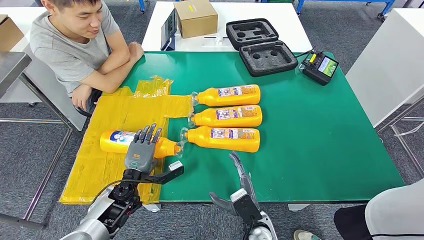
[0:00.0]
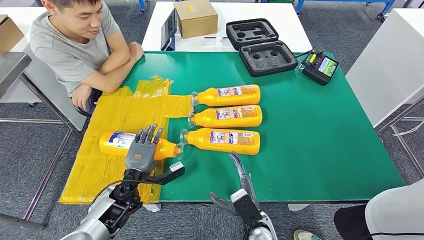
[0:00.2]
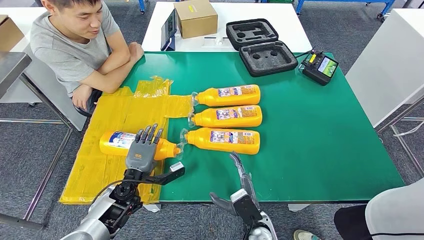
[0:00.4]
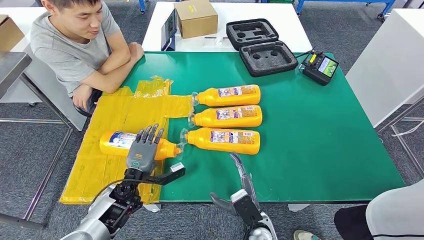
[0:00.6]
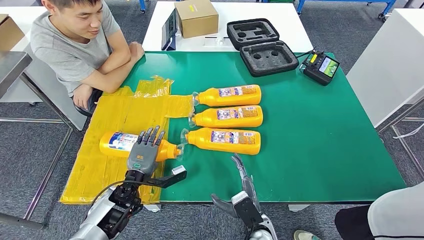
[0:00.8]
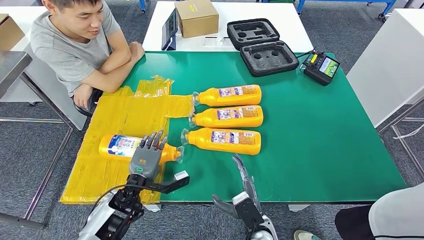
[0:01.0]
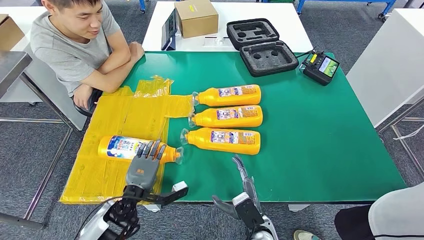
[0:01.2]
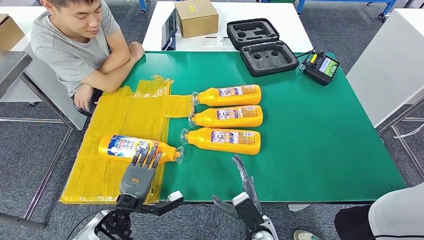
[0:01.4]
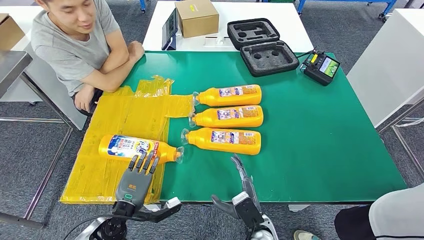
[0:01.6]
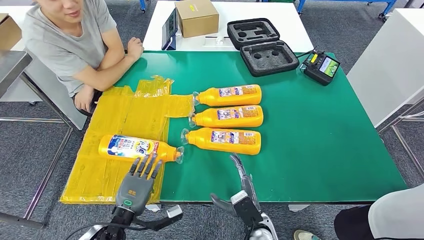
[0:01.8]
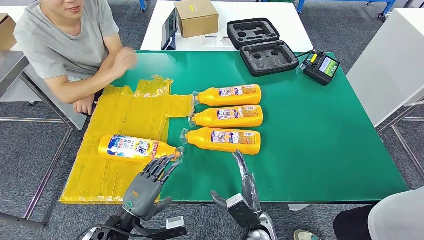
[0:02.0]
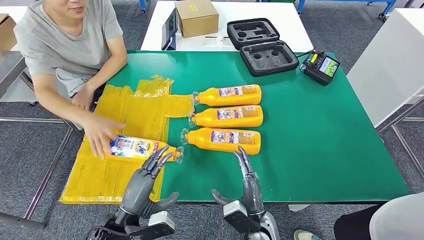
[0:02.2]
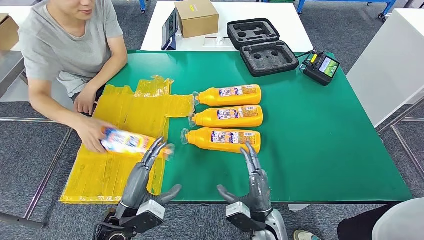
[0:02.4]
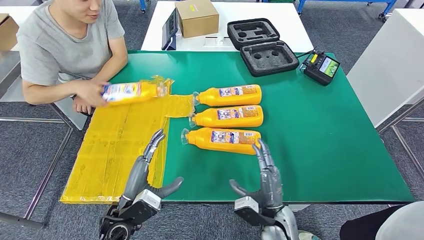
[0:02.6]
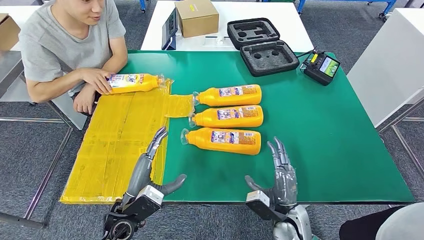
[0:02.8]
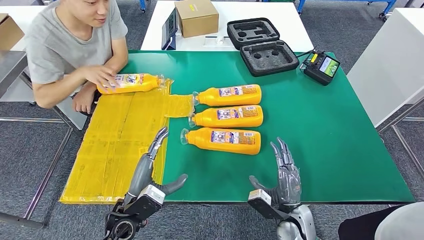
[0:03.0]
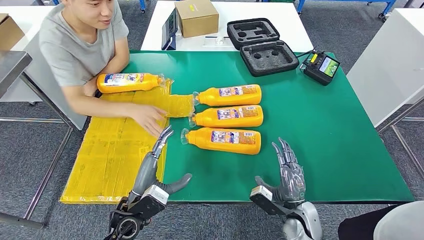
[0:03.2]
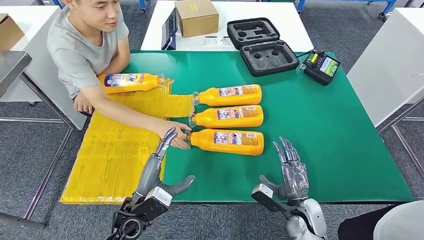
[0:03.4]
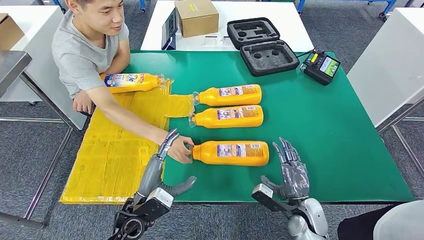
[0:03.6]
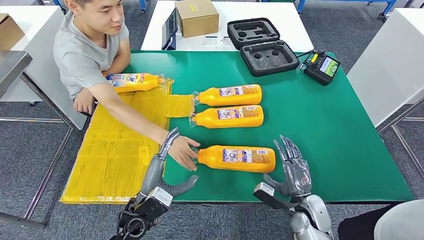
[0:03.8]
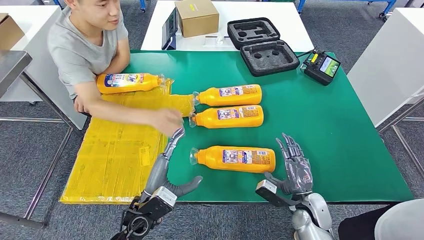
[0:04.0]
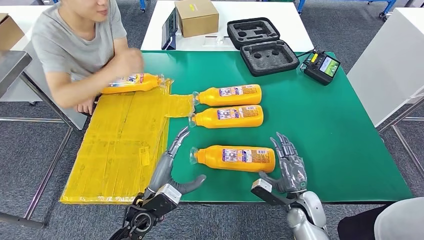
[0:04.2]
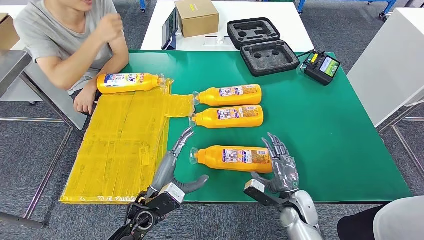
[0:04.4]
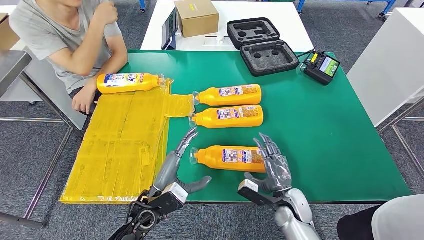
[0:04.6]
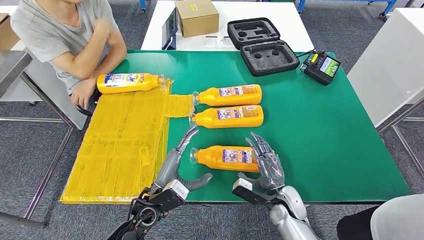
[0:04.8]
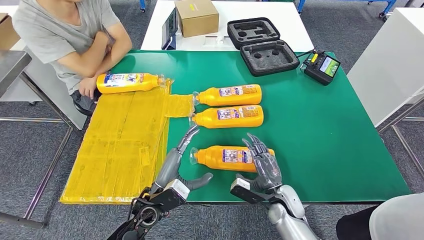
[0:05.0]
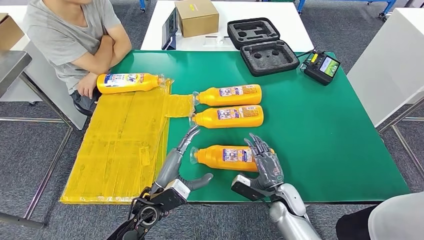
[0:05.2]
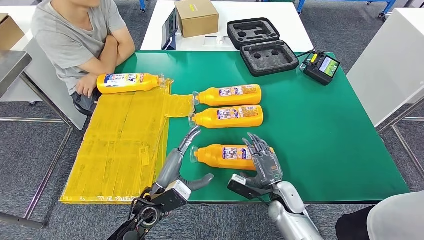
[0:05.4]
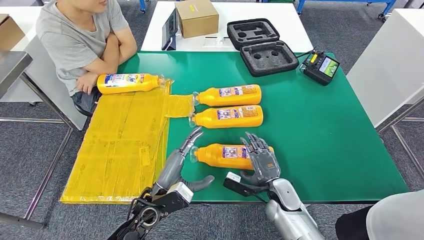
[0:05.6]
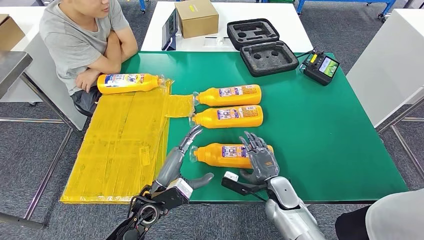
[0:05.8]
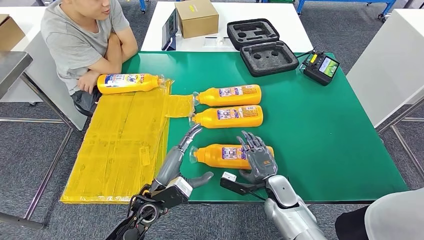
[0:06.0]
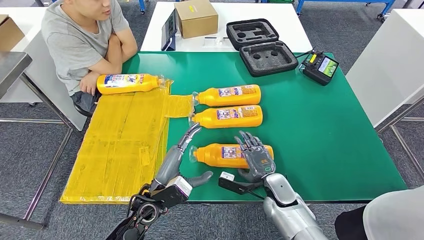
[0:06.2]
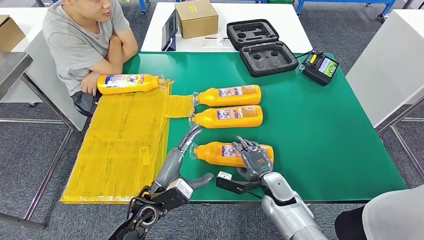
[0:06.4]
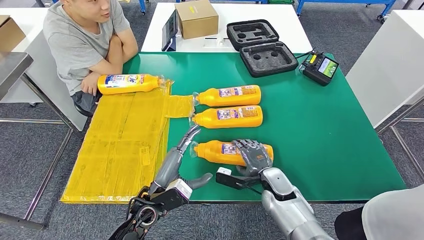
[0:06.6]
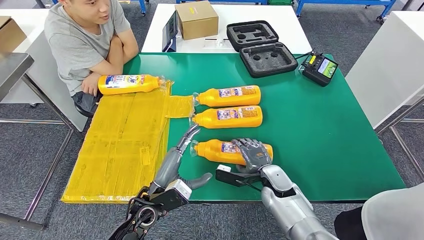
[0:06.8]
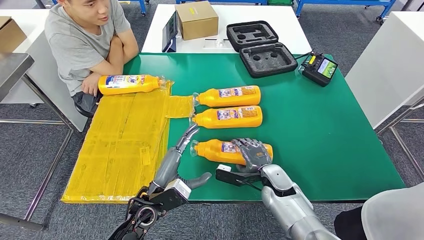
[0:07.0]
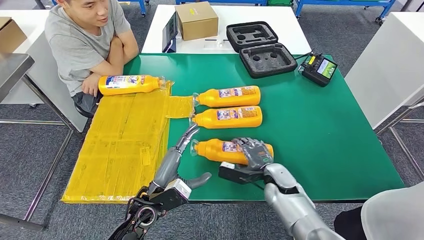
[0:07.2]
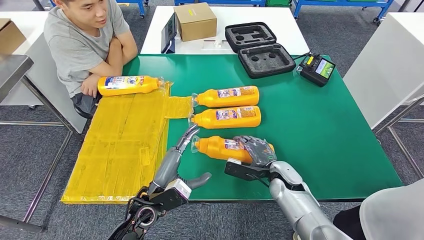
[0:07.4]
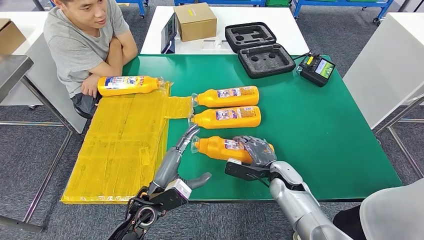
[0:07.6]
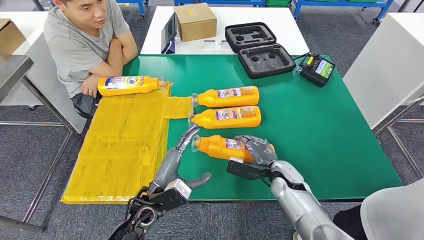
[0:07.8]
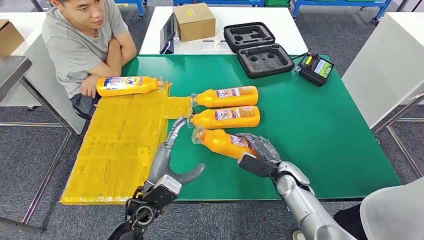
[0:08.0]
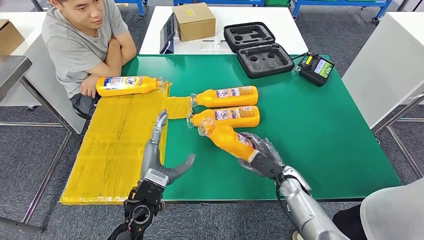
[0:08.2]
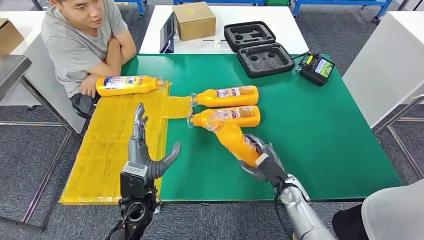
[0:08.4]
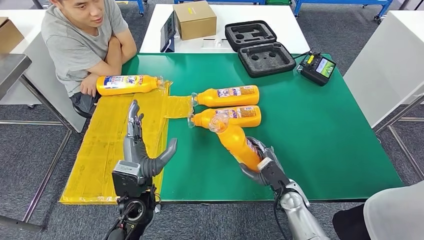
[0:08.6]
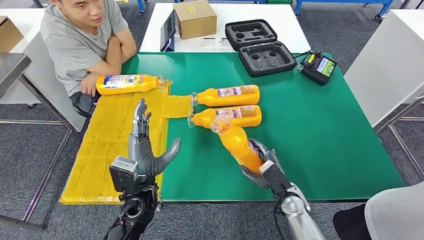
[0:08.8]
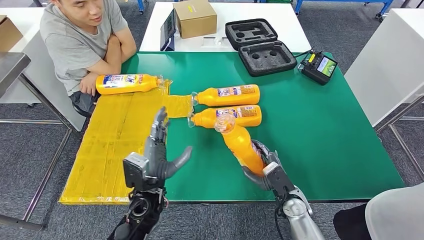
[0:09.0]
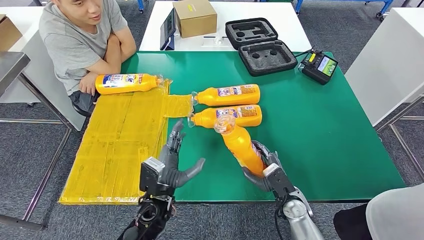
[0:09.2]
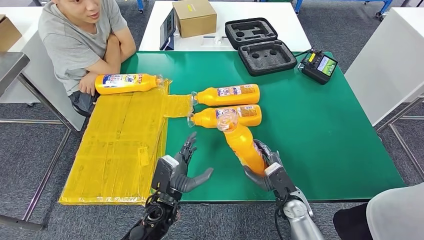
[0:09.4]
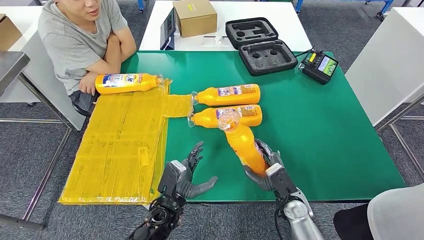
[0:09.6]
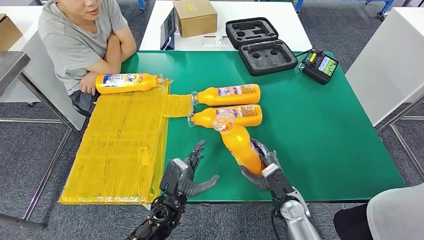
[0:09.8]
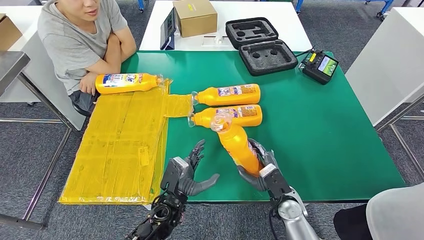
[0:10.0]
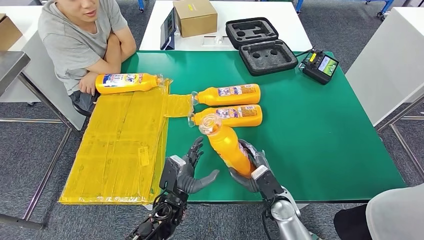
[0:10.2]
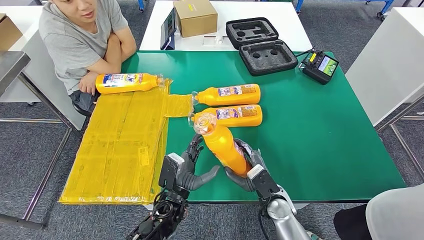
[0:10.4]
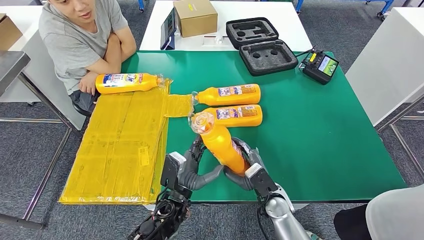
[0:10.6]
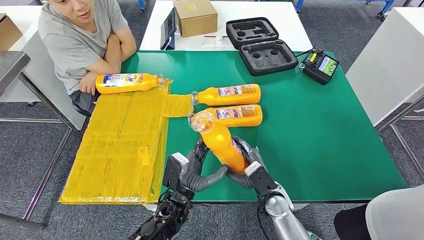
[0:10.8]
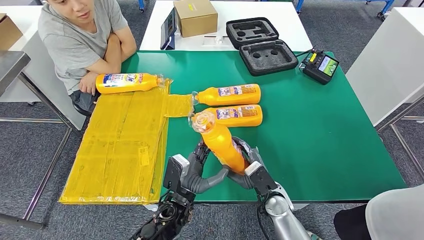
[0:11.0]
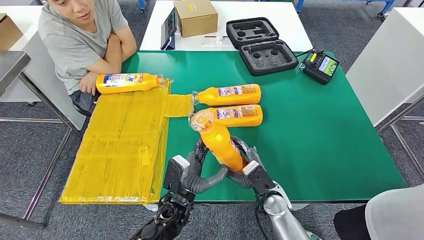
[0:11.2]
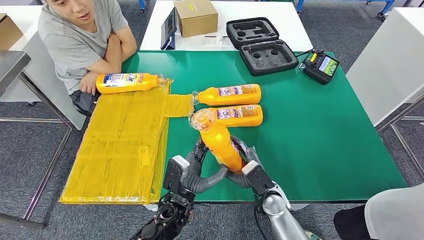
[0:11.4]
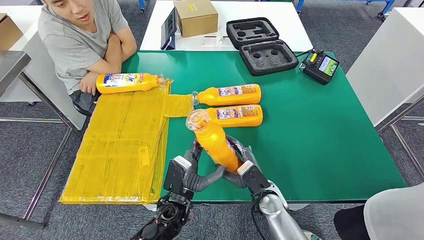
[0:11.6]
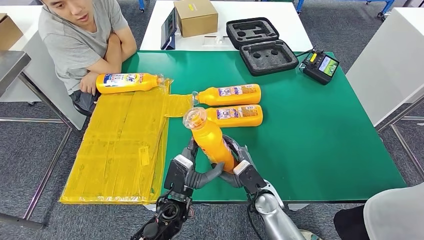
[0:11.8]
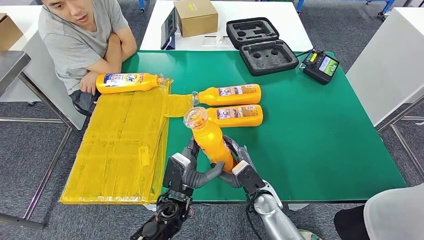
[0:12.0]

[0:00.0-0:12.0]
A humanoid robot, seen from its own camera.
0:00.0 to 0:01.6: The left hand goes about 10 cm backward.
0:01.6 to 0:03.0: The right hand goes about 10 cm to the right; the left hand changes place by about 5 cm.
0:03.0 to 0:04.4: The left hand ends up some 5 cm from where it was.
0:04.4 to 0:06.0: The right hand shifts some 5 cm to the left.
0:09.0 to 0:10.4: The right hand changes place by roughly 5 cm, while the left hand is displaced downward and to the right by roughly 10 cm.
0:10.4 to 0:12.0: There are only small adjustments of the hands.

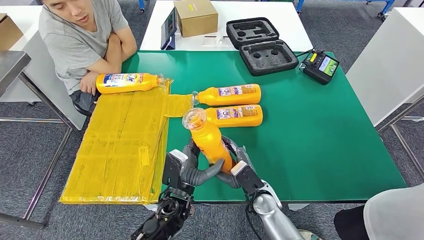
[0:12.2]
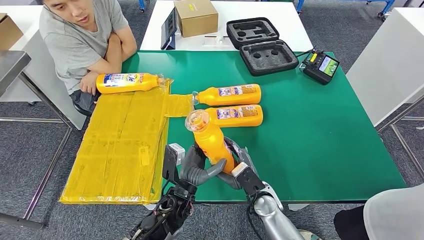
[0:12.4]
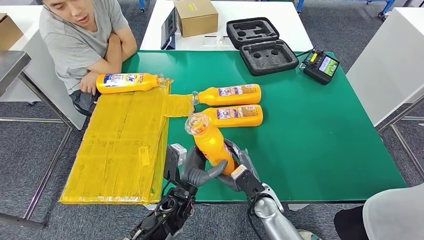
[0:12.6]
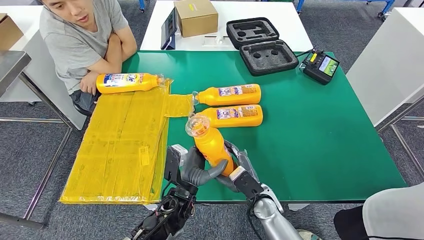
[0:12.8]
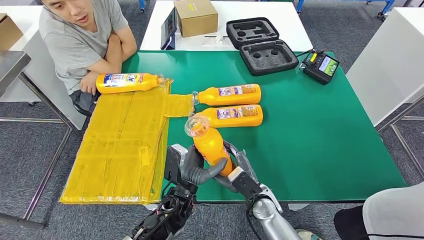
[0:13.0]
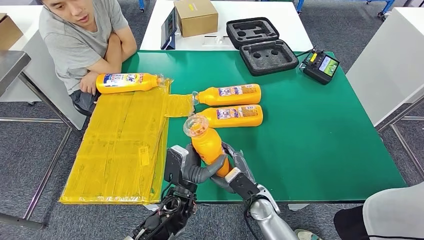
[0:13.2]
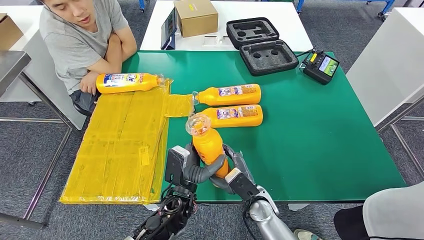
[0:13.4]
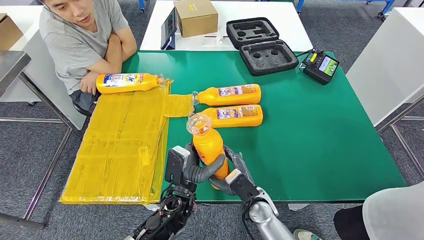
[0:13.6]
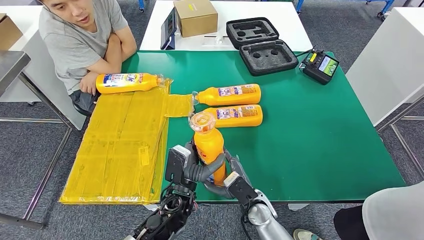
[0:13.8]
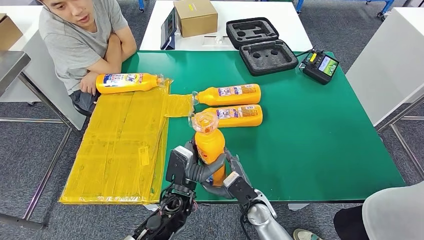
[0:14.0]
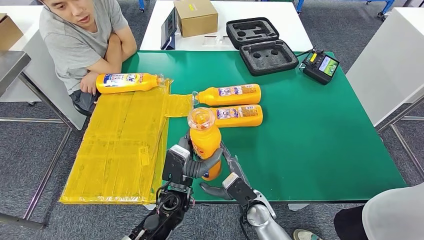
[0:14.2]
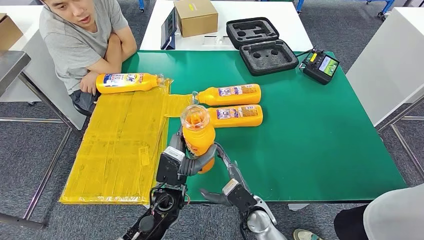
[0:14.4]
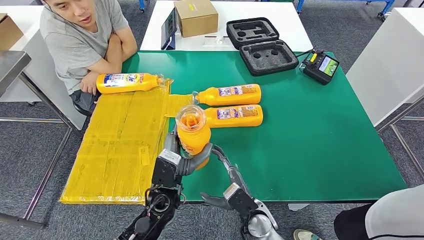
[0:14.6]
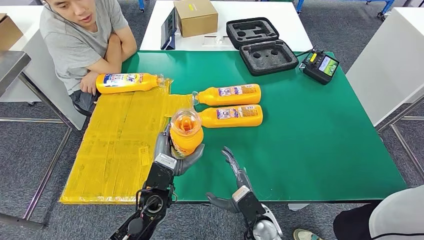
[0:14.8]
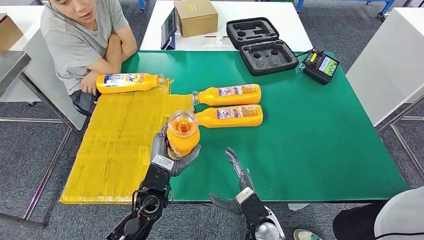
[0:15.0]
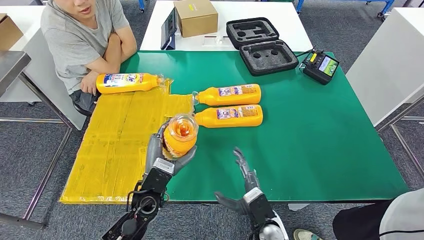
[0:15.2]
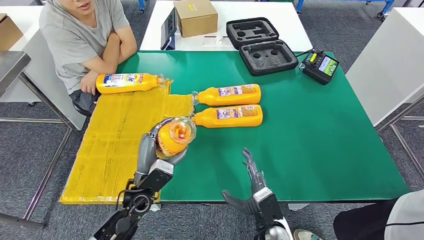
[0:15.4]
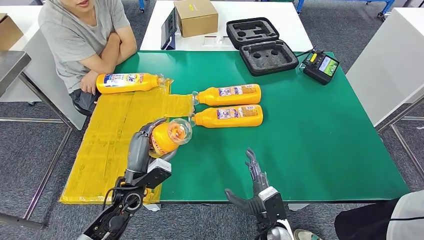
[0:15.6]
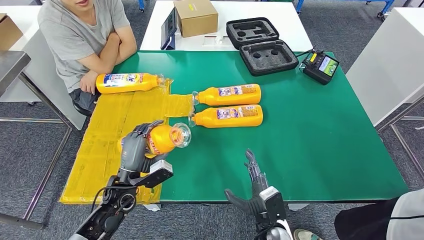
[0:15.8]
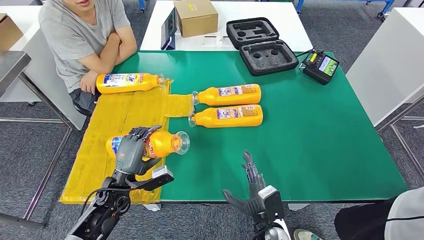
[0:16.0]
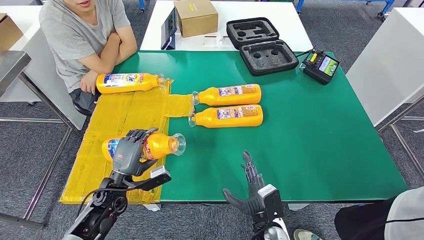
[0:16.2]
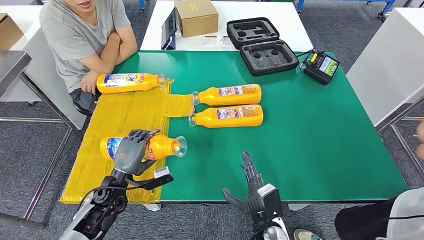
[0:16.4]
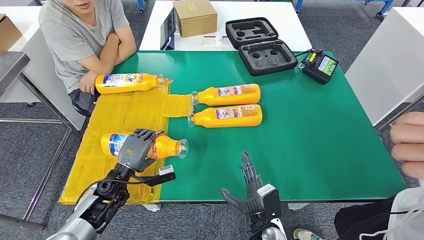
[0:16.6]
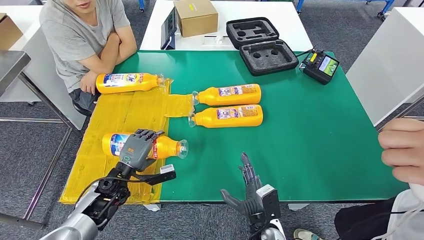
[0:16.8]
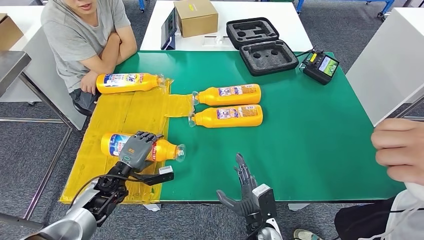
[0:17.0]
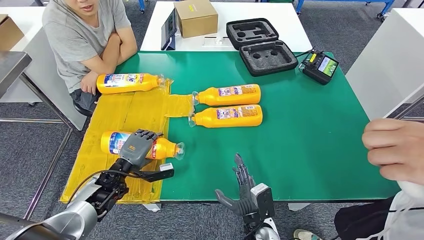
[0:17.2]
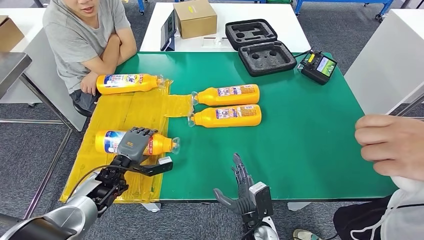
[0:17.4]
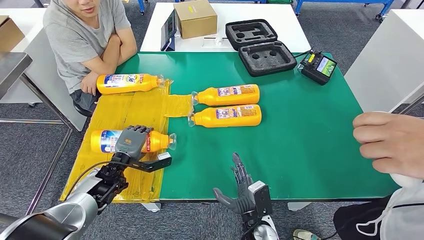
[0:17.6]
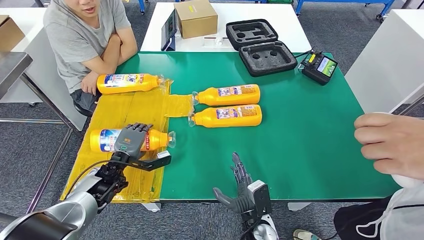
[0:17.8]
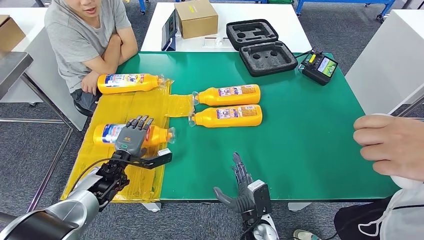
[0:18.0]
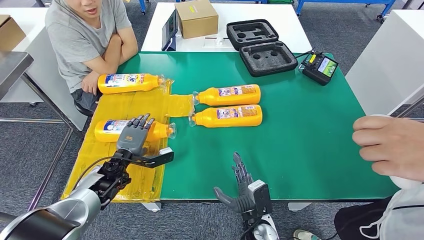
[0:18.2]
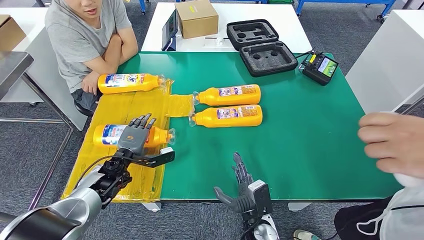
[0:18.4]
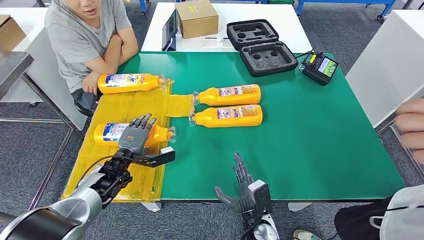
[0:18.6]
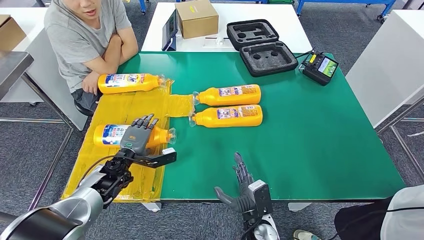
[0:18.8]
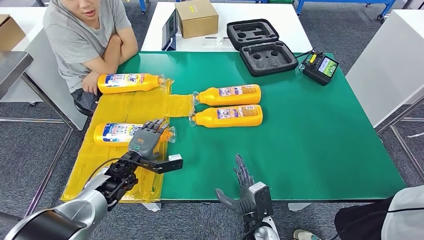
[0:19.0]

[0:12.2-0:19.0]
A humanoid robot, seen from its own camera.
Step, 0:14.0 to 0:18.8: Flip the fast-moving consumer goods bottle to the front side.
0:12.2 to 0:13.6: The hands stay close to where they were, moving slightly.
0:13.6 to 0:15.0: The right hand travels backward by approximately 5 cm; the left hand goes approximately 5 cm to the left.
0:15.0 to 0:16.2: The left hand moves to the left, some 15 cm.
0:17.6 to 0:19.0: The hands stay close to where they were, moving slightly.
